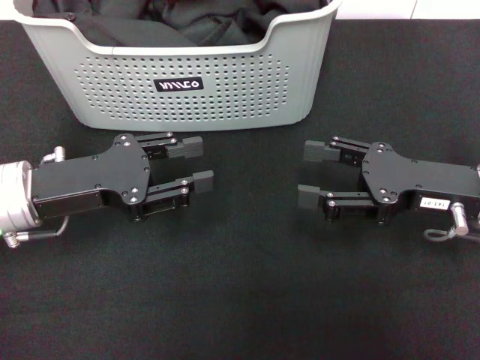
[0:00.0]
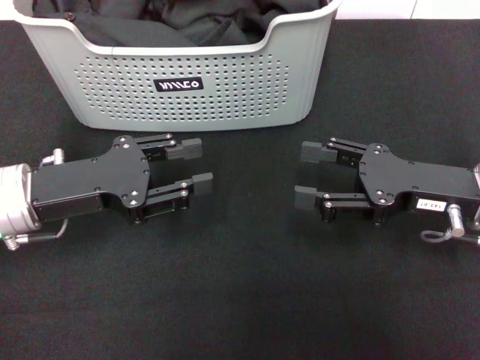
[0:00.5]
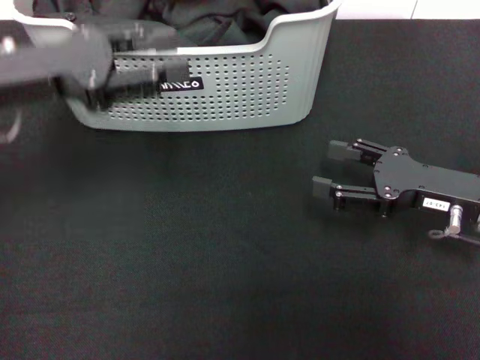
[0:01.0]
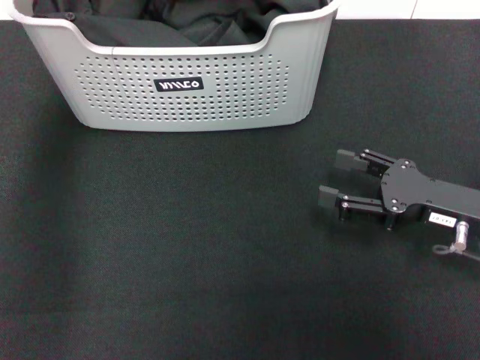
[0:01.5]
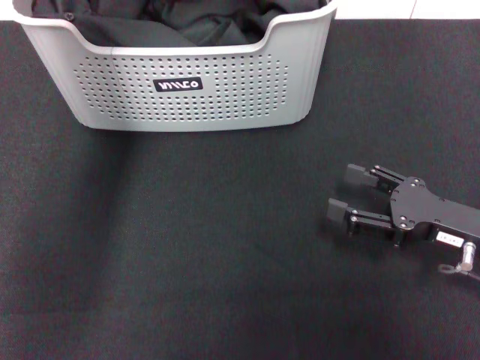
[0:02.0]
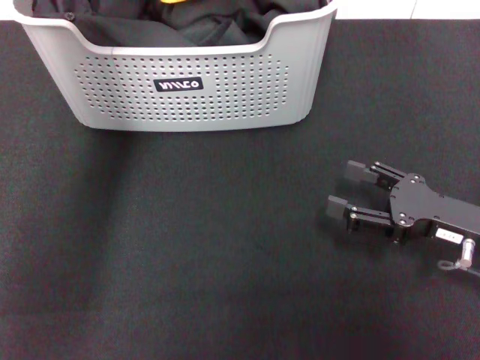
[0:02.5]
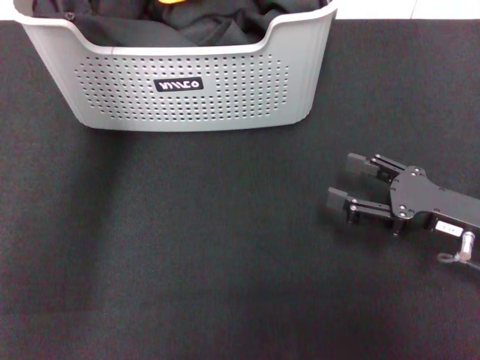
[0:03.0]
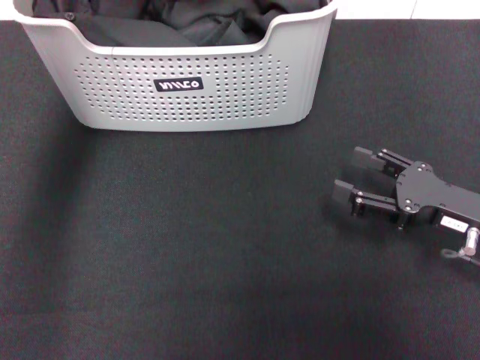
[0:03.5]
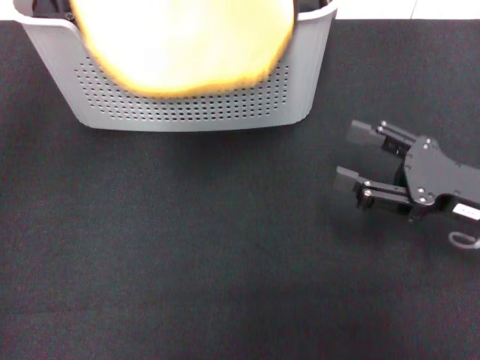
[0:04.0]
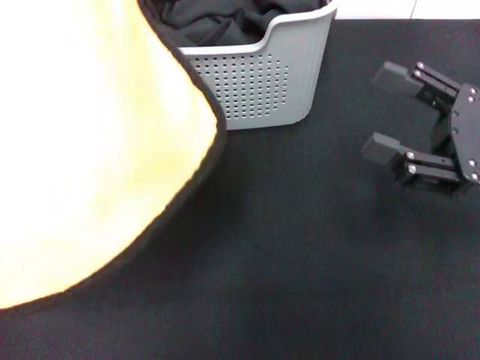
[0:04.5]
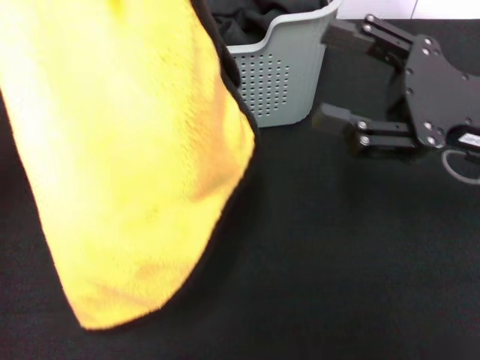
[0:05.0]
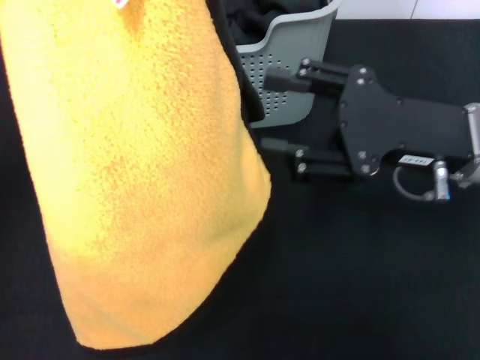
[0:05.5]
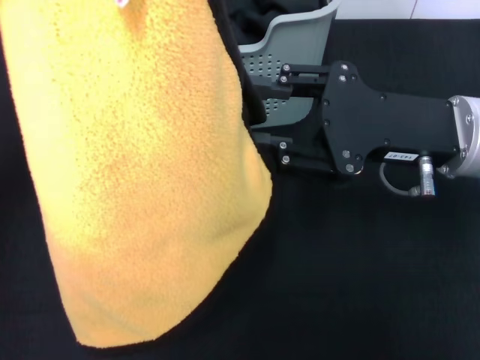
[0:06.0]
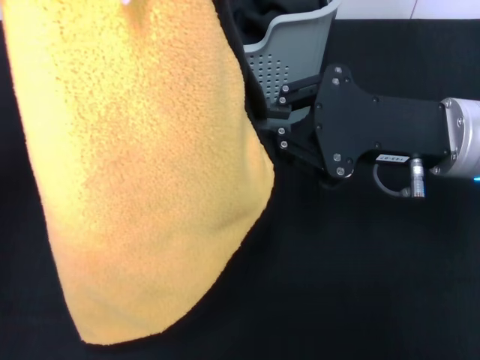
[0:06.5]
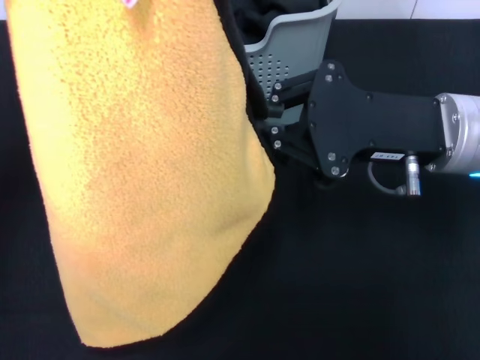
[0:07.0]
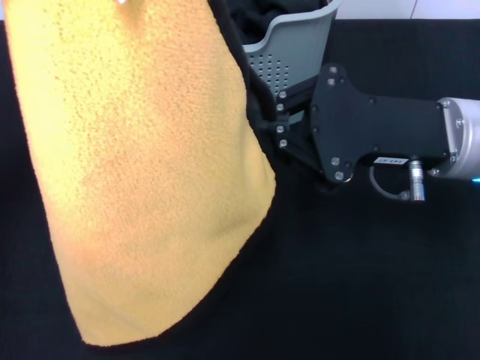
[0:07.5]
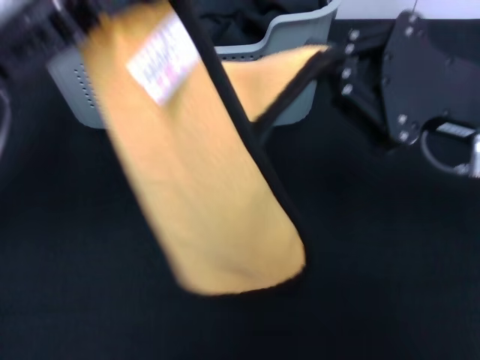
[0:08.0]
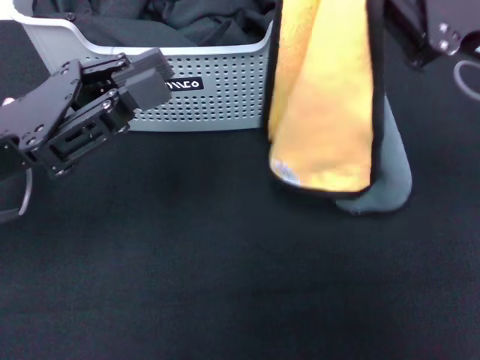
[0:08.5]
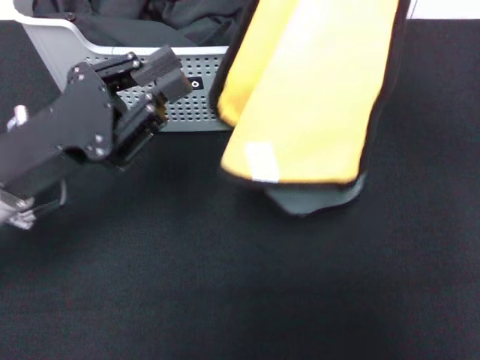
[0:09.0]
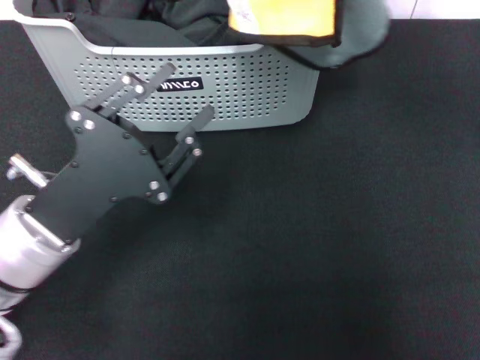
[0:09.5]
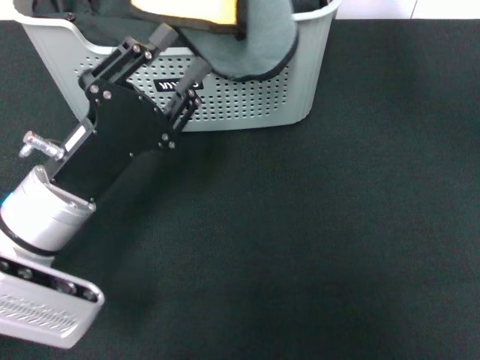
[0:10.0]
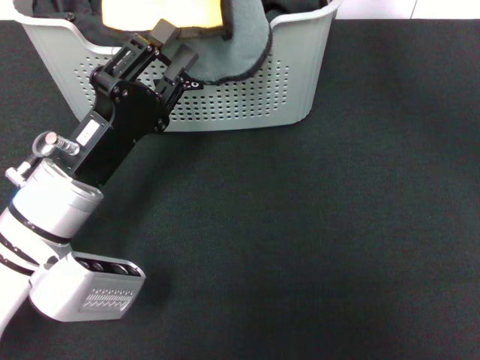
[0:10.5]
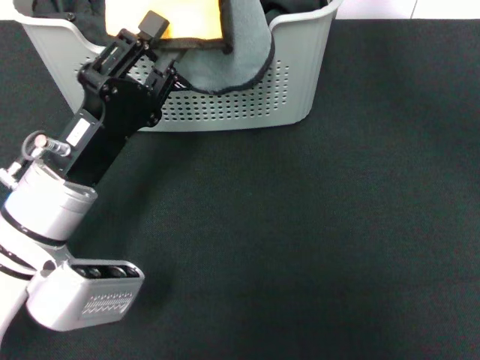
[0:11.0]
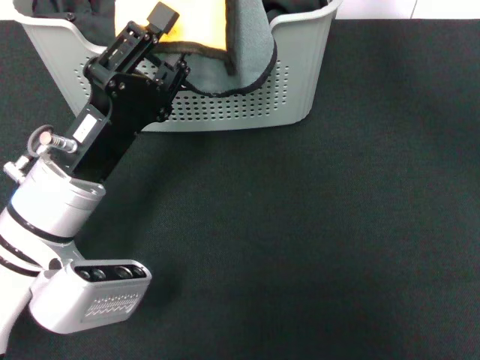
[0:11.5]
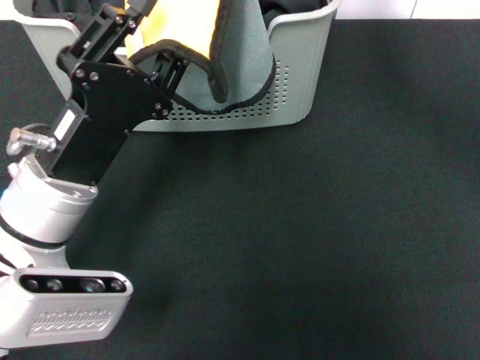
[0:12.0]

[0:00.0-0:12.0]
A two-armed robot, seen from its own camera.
Task of the whole recording: pick up the towel from the storage box and lay it flat on the black tablecloth.
Step, 0:00.0 to 0:03.0: Pick up a towel with the left gripper.
Step, 0:03.5 to 0:07.5: Spread the towel flat with the left gripper.
0:00.0 to 0:02.0: The left gripper is displaced upward, forward and to the right by roughly 30 cm. Meanwhile the right gripper moves roughly 5 cm.
0:02.0 to 0:04.0: The left gripper is displaced to the left and backward by some 20 cm, and closes its fingers.
0:04.0 to 0:06.0: The right gripper goes roughly 10 cm to the left and upward. Meanwhile the left gripper moves downward, some 5 cm.
0:06.0 to 0:08.0: The right gripper closes. Meanwhile the left gripper moves downward, roughly 5 cm.
0:08.0 to 0:10.0: The left gripper moves downward, about 15 cm, and opens up. Meanwhile the right gripper shifts roughly 20 cm upward, forward and to the left.

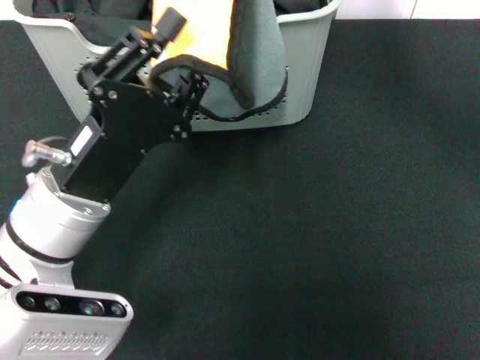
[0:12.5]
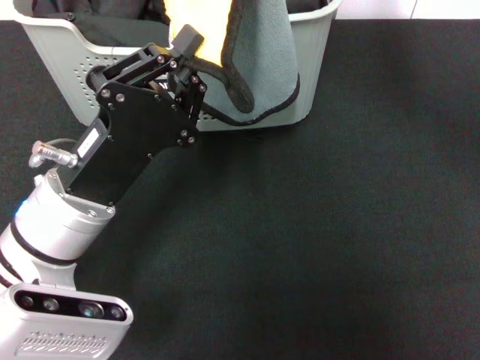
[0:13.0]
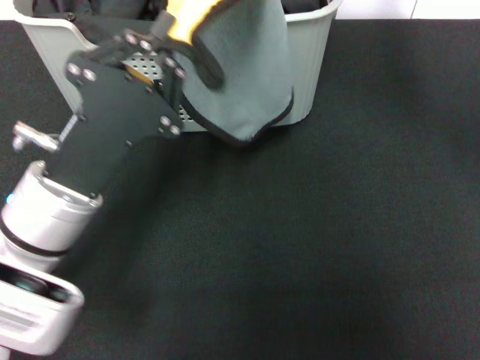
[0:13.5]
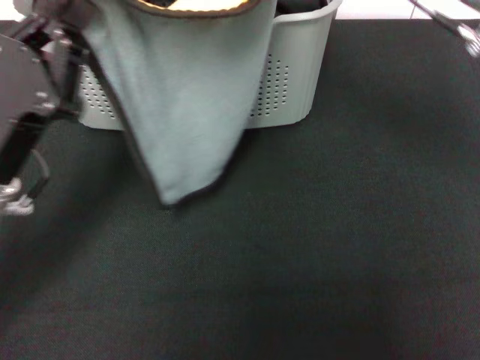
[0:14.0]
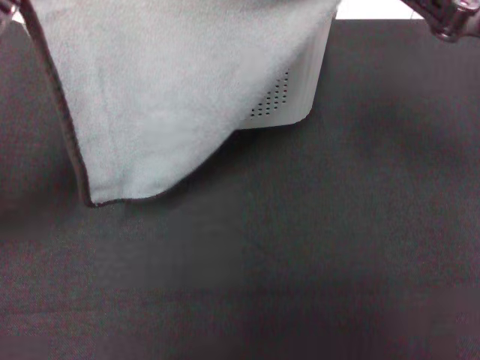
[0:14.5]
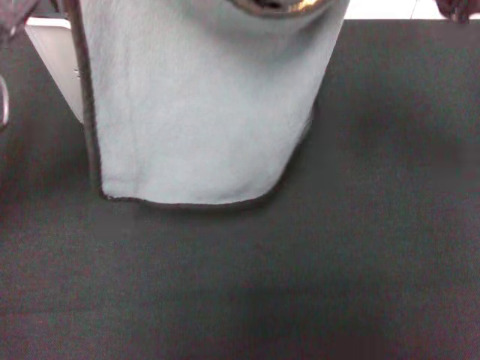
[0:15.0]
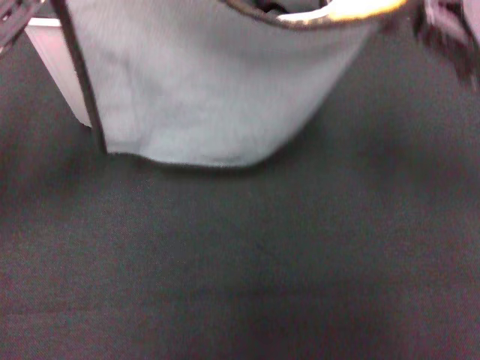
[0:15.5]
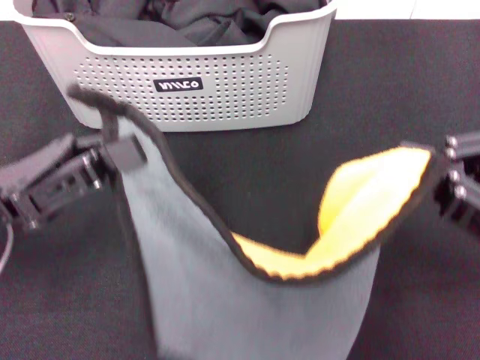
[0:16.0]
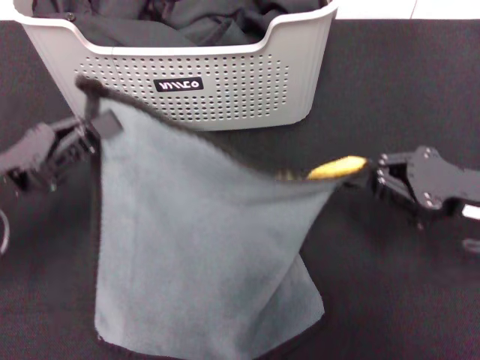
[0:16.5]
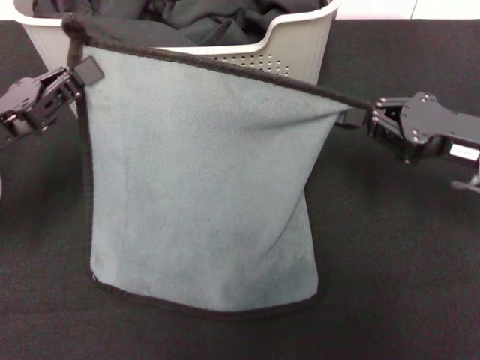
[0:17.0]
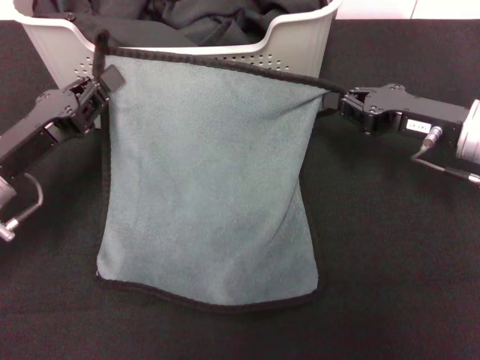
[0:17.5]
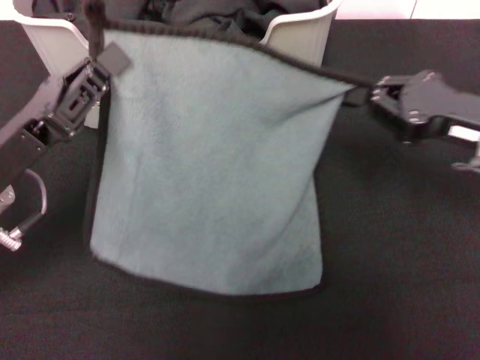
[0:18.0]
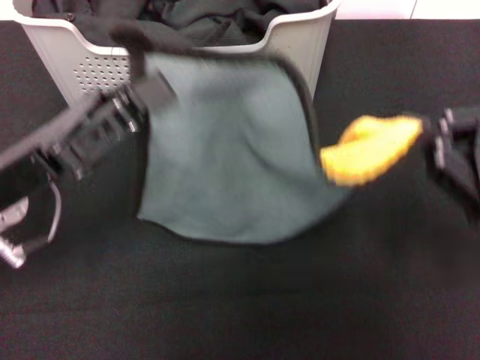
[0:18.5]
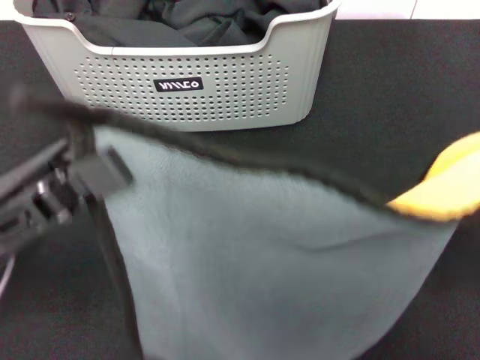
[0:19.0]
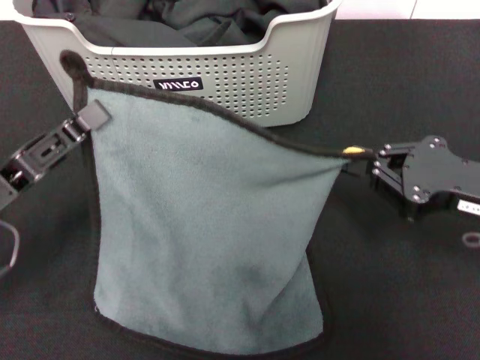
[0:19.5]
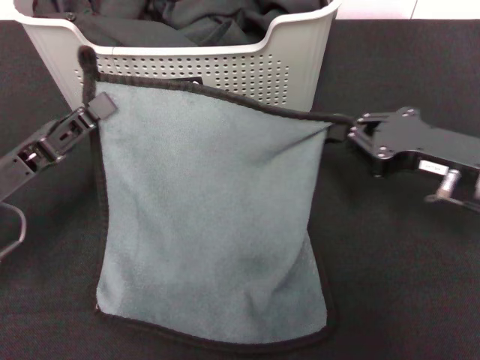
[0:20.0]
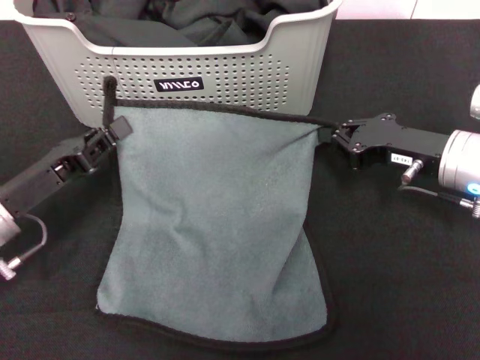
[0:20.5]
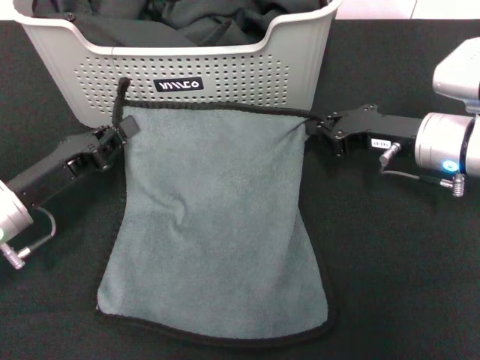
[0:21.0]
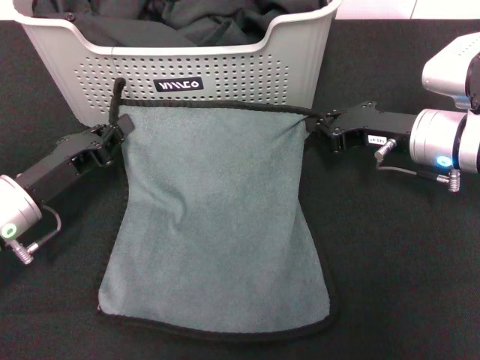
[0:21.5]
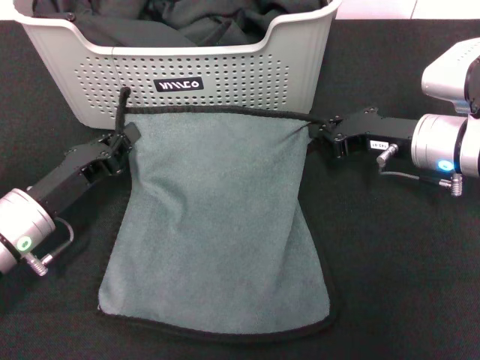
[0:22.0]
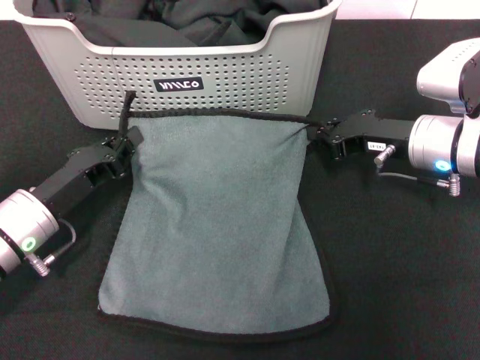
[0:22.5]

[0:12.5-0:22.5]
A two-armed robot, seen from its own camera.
Task of the whole recording: pick up the towel from the storage box and lay it flat on the black tablecloth.
0:12.5 to 0:14.5: The right gripper moves to the right, backward and downward, some 20 cm; the left gripper heads to the left and upward, covering roughly 10 cm, and closes its fingers.
0:14.5 to 0:16.5: The left gripper travels downward by roughly 5 cm; the right gripper moves downward, about 10 cm.
0:16.5 to 0:18.5: The right gripper heads upward and backward, covering about 10 cm, while the left gripper shifts about 5 cm to the right.
0:18.5 to 0:20.5: The left gripper moves downward, roughly 5 cm. The right gripper heads forward, downward and to the left, covering approximately 15 cm.
0:20.5 to 0:22.5: The grippers make only small movements.

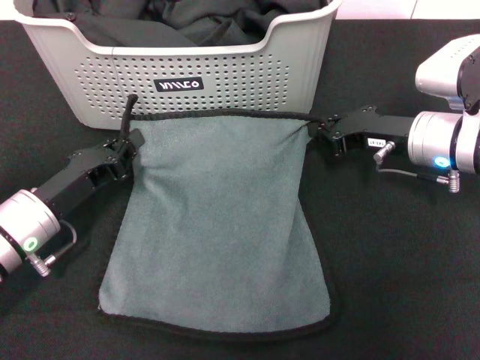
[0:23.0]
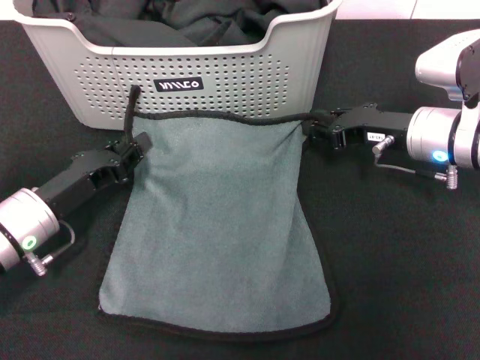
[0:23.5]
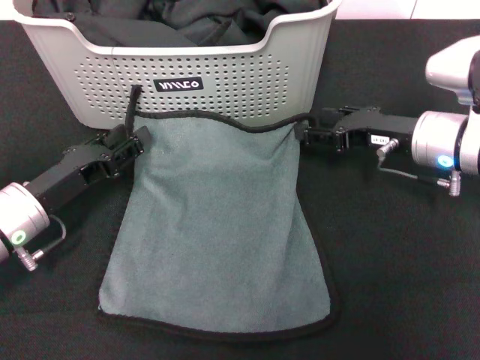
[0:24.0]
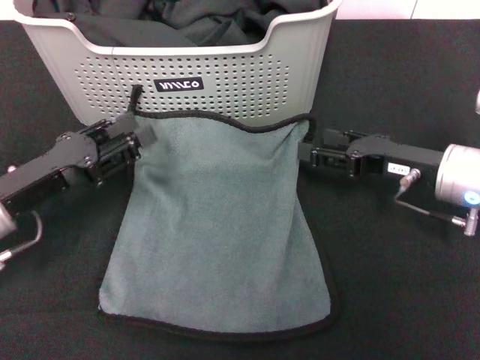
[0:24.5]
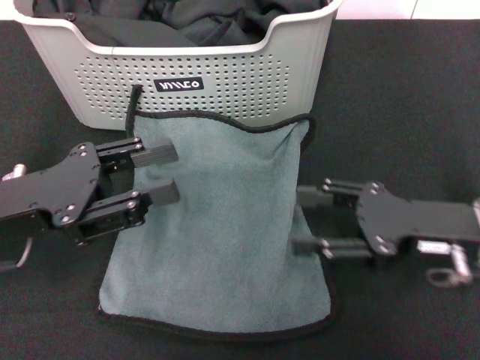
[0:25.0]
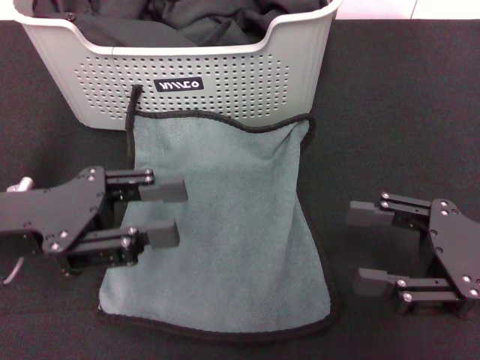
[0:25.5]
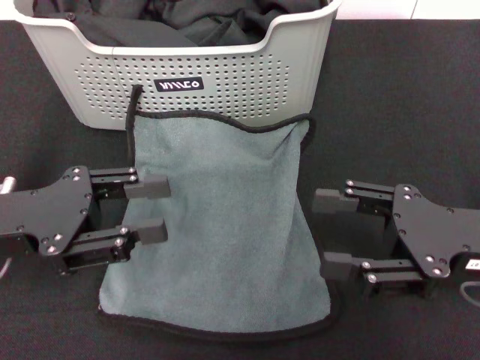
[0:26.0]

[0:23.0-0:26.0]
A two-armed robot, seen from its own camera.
Task of the whole recording: pick up the towel from the storage box and lay it flat on the black tablecloth.
0:23.0 to 0:24.5: The right gripper opens its fingers; the left gripper ends up about 5 cm from where it was, and opens.
0:24.5 to 0:26.0: The right gripper goes about 10 cm backward. Meanwhile the left gripper is displaced upward by about 5 cm.
